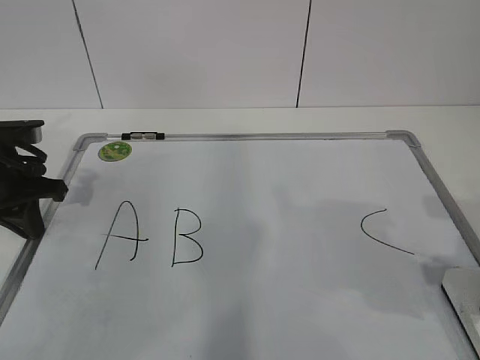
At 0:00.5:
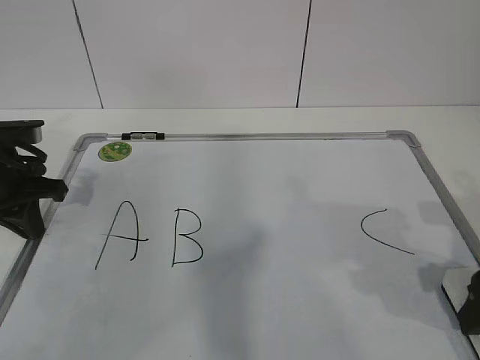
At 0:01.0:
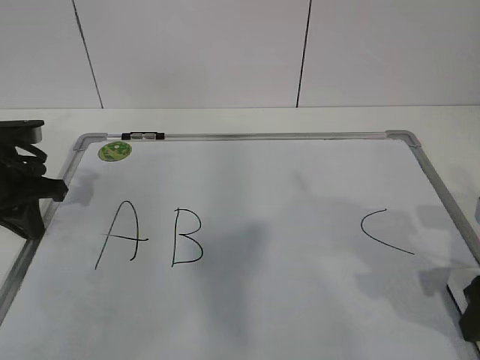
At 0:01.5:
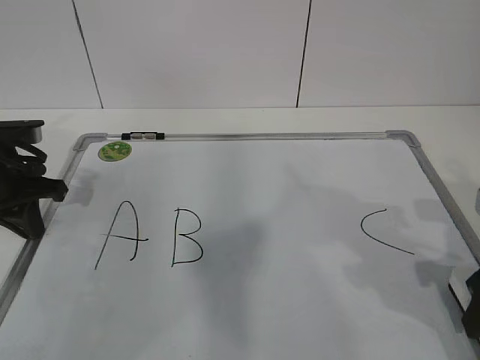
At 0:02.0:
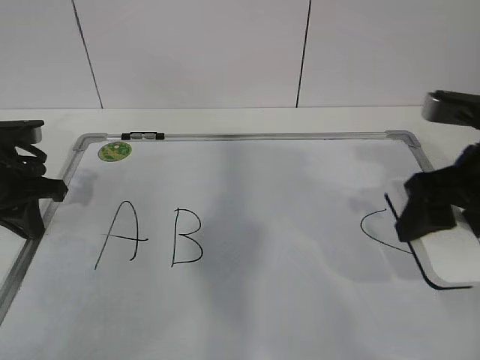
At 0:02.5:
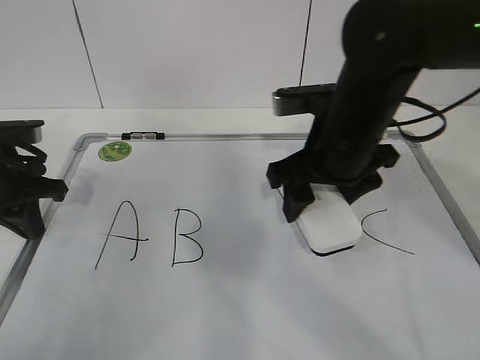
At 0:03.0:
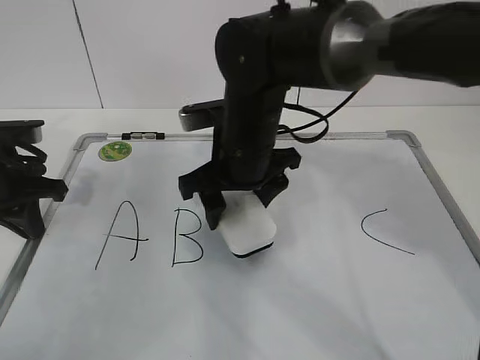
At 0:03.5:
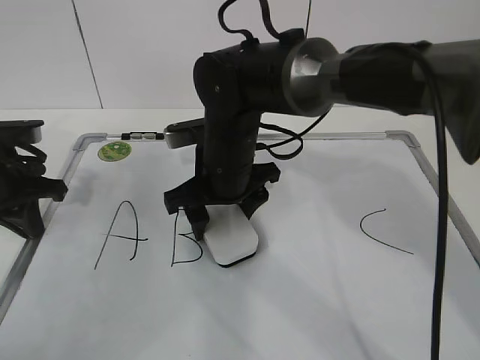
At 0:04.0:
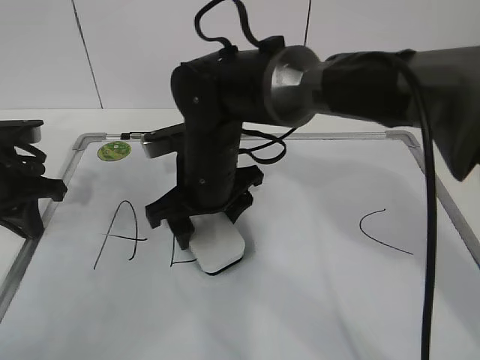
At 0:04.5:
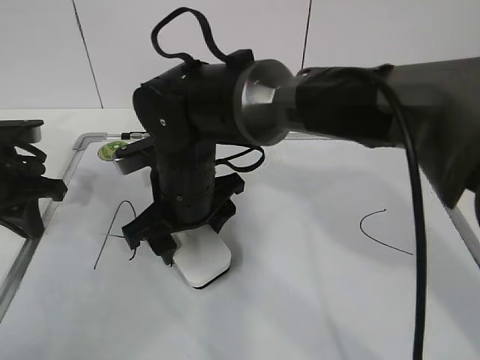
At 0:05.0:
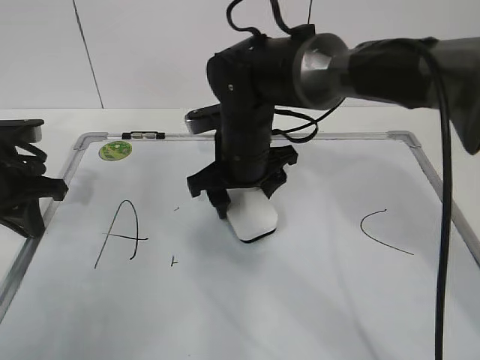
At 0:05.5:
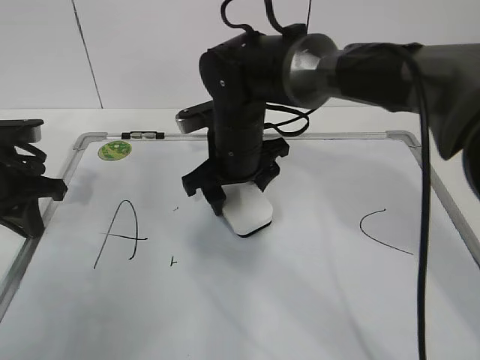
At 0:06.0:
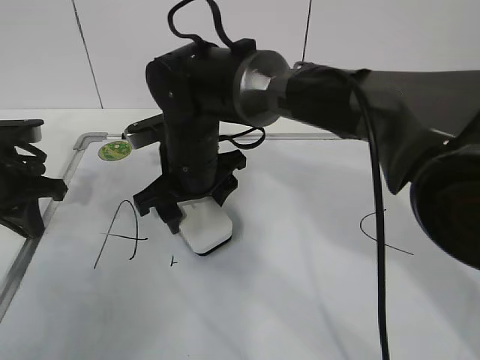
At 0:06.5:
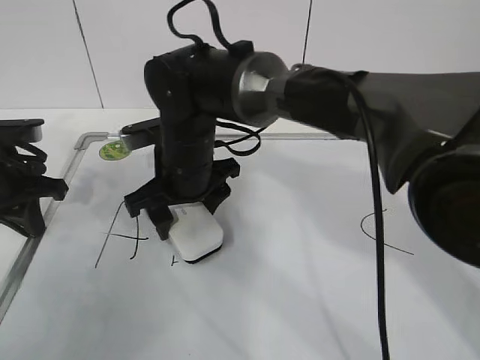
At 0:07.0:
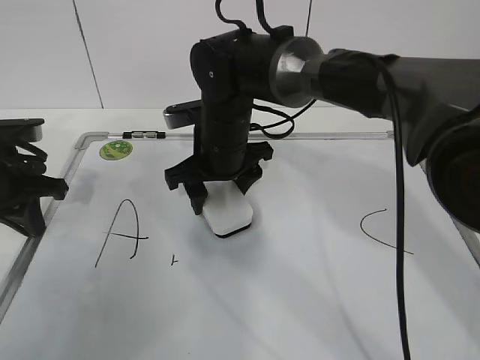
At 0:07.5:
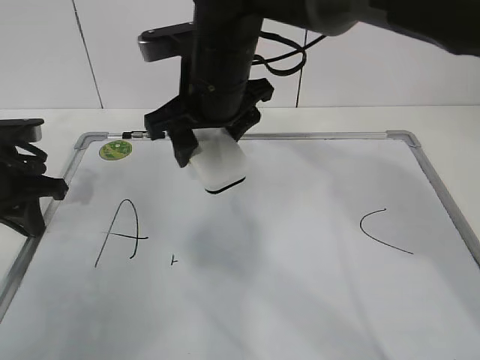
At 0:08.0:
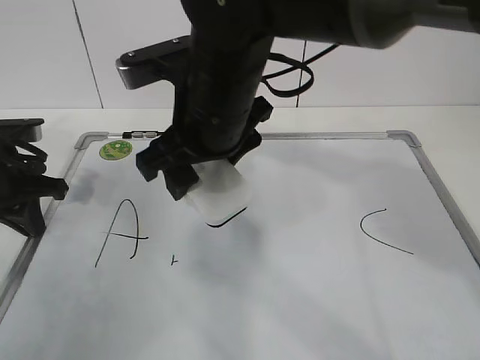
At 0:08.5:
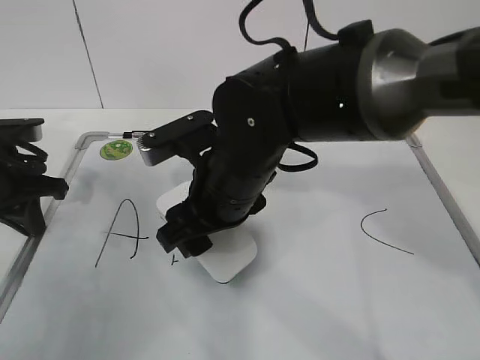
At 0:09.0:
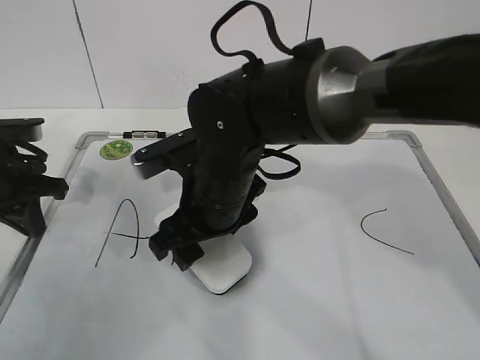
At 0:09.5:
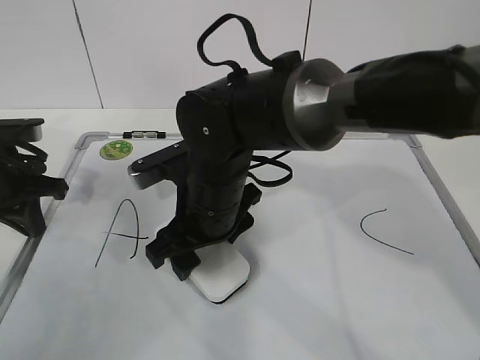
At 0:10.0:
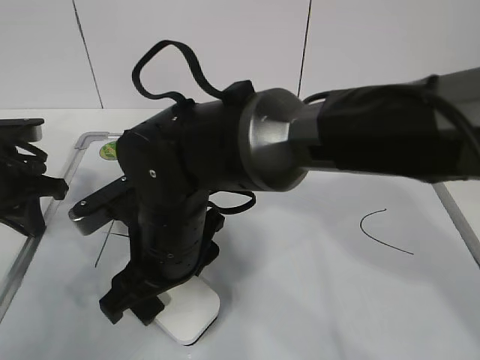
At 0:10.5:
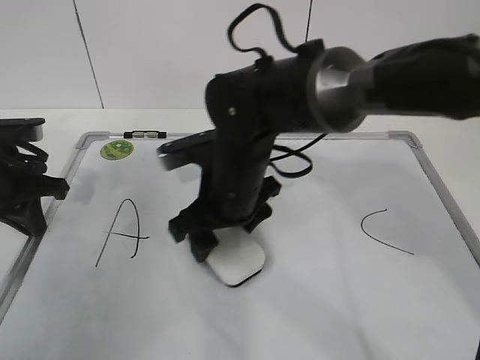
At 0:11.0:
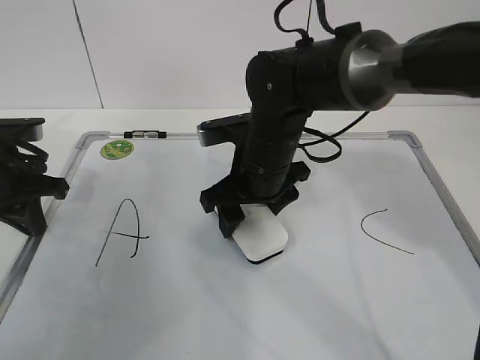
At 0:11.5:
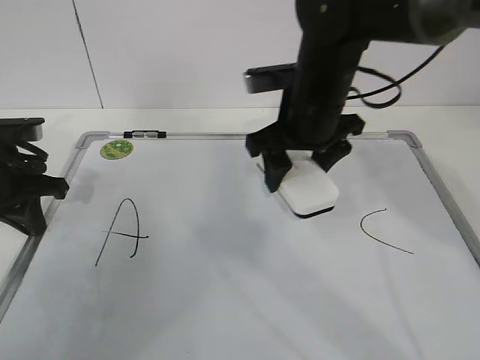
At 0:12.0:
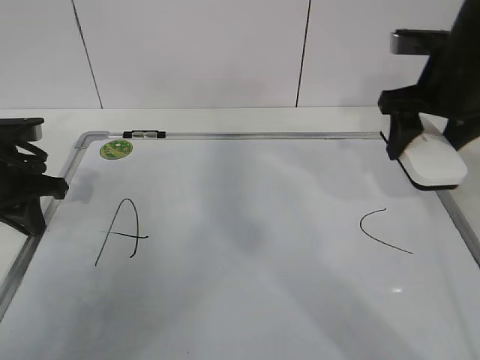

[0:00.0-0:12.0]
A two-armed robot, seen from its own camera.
Task of the whole recording: pick up the eraser on the blackboard and erase the letter "B".
Step, 0:00.0 to 0:08.0: Erase the letter B with your right hand.
Step, 0:08.5 to 0:10.5: Put down the eraser with your right hand.
0:00.0 to 0:02.0: The right gripper moves forward, some 10 cm, and closes its fingers.
0:02.0 to 0:04.0: The right gripper goes some 25 cm to the left.
0:06.0 to 0:08.0: The right gripper heads upward and backward, covering about 10 cm.
0:08.0 to 0:10.0: The right gripper travels downward and backward by approximately 10 cm.
0:10.0 to 0:12.0: The right gripper heads to the right and forward, covering roughly 30 cm.

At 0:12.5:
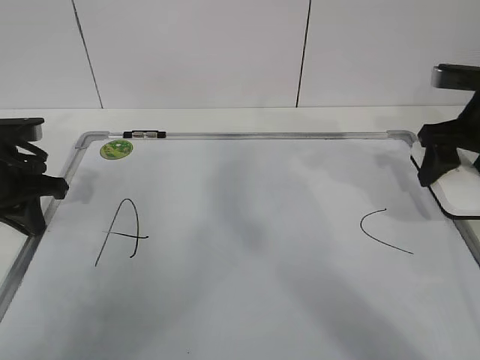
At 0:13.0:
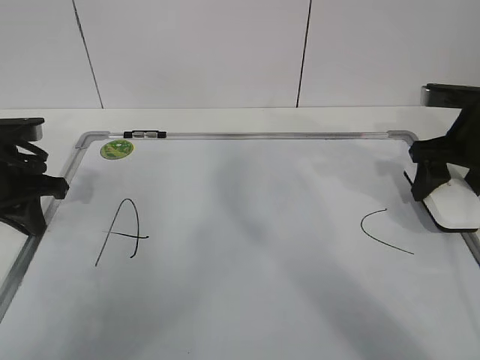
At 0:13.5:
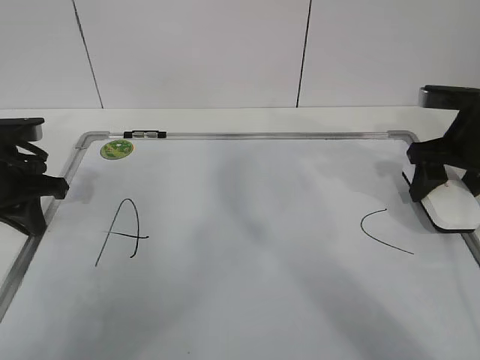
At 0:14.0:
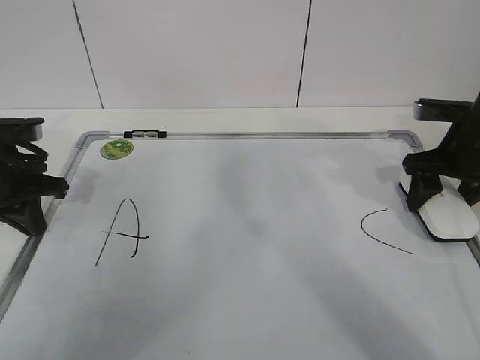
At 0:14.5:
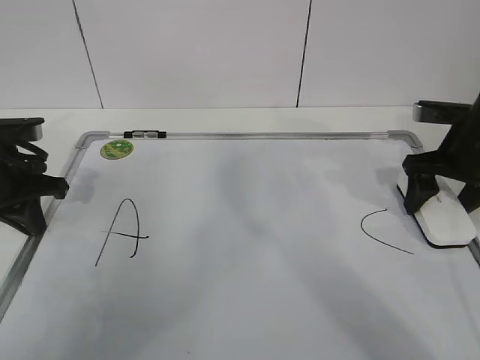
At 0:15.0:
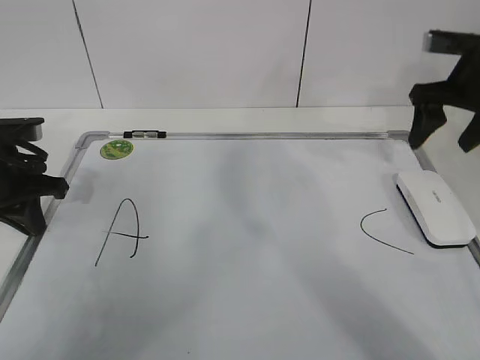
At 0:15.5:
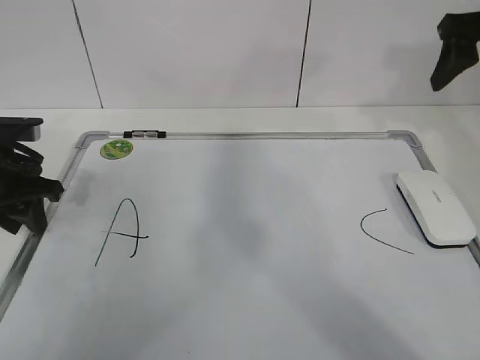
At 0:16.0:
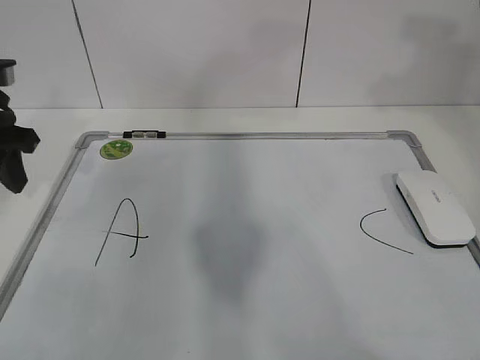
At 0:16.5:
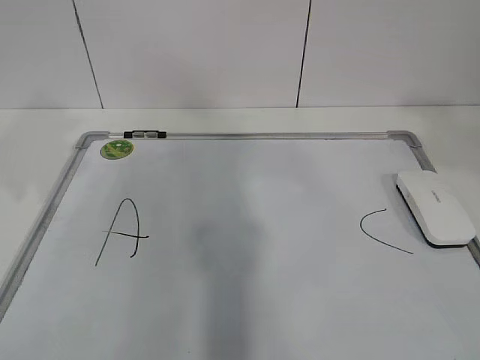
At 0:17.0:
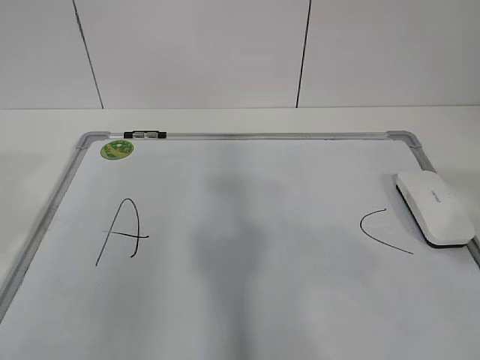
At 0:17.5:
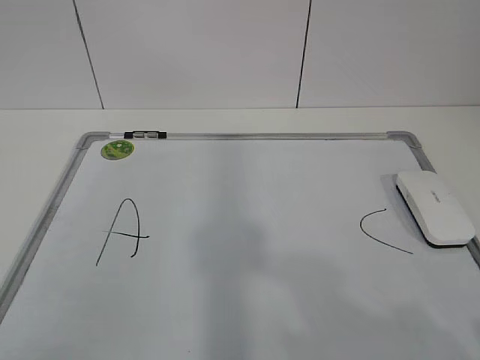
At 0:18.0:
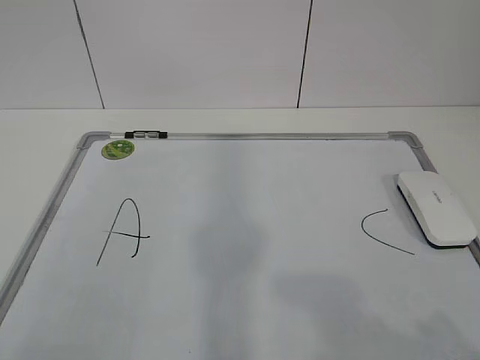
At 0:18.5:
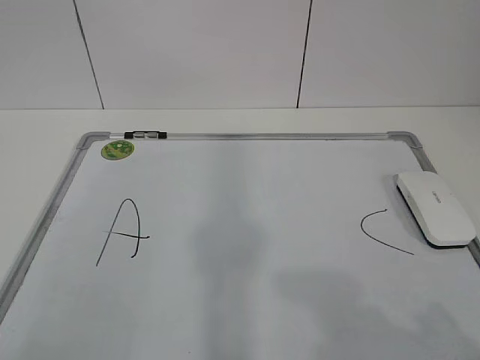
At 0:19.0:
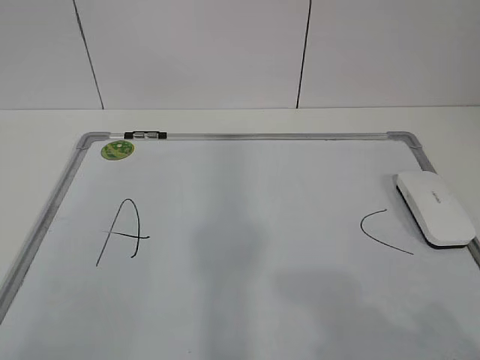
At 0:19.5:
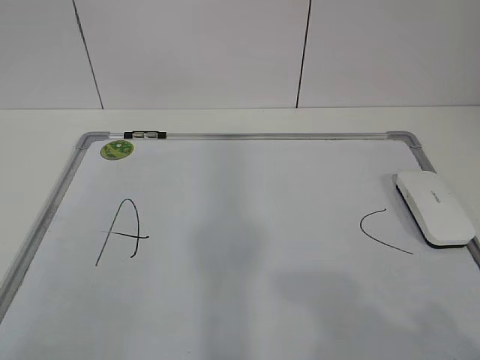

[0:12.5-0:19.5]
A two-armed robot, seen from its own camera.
Task of the whole recording: pick up the eraser on the blackboard and erase the letter "B".
0:12.5 to 0:14.5: The right gripper opens up.
0:14.5 to 0:16.0: The right gripper shifts about 25 cm upward, and closes. Meanwhile the left gripper goes about 10 cm upward, and opens.
0:16.0 to 0:17.5: Both grippers travel together backward, about 30 cm.

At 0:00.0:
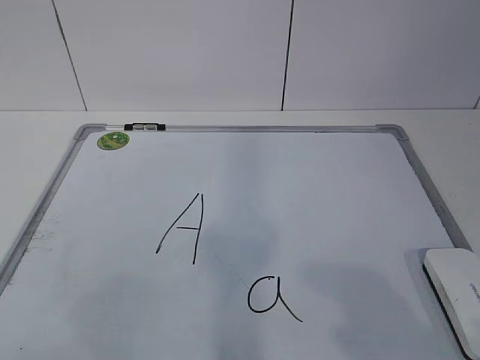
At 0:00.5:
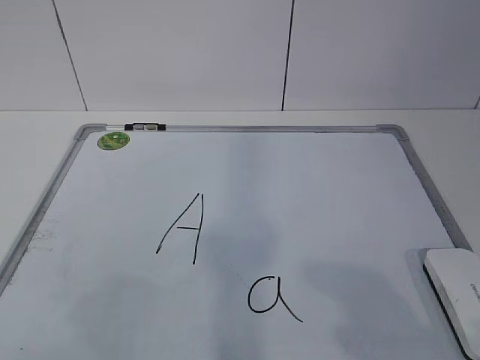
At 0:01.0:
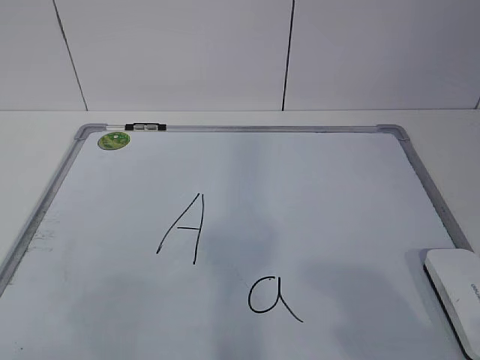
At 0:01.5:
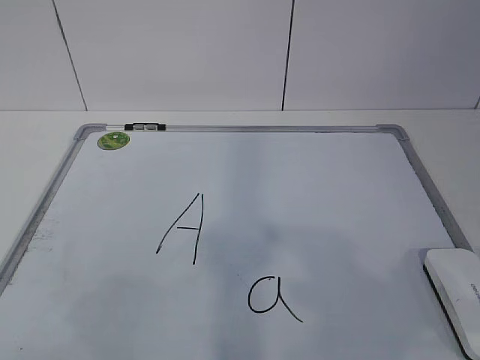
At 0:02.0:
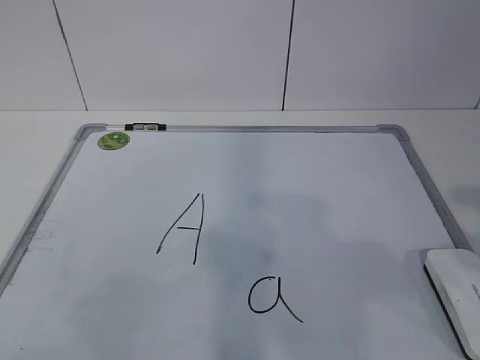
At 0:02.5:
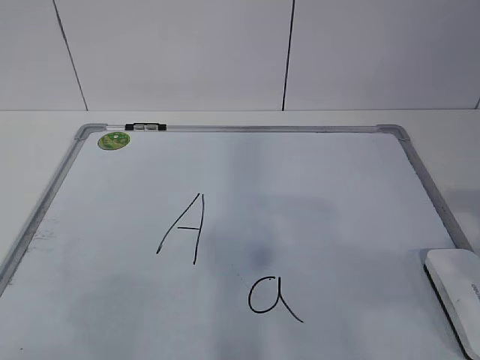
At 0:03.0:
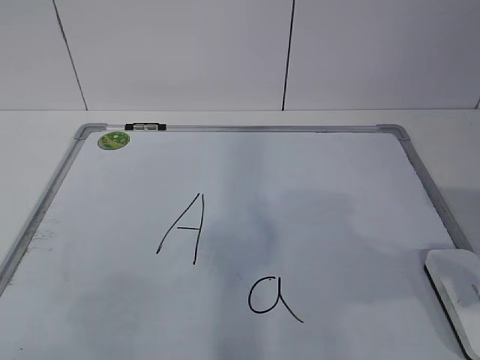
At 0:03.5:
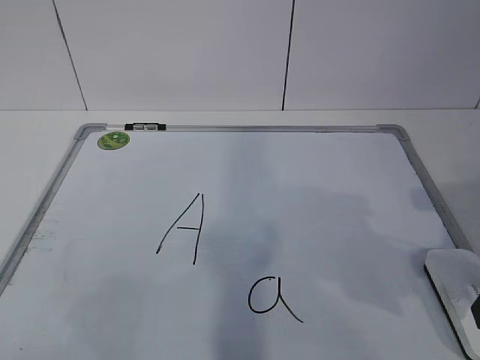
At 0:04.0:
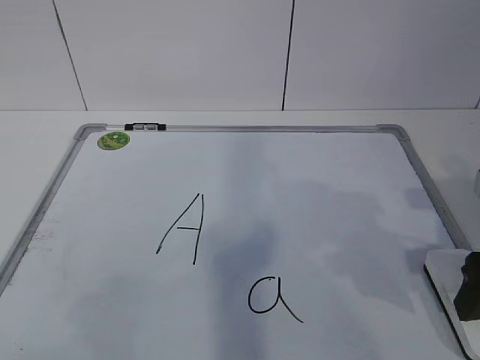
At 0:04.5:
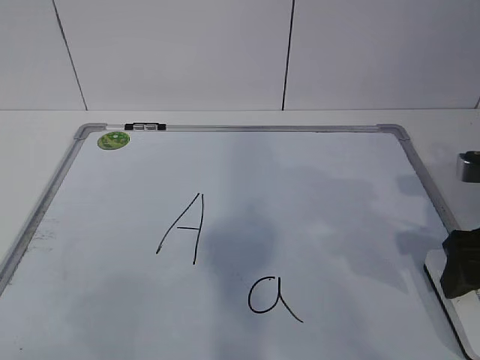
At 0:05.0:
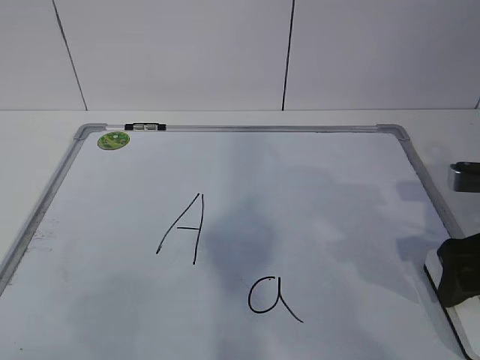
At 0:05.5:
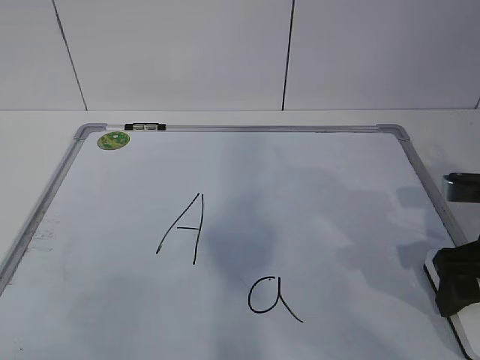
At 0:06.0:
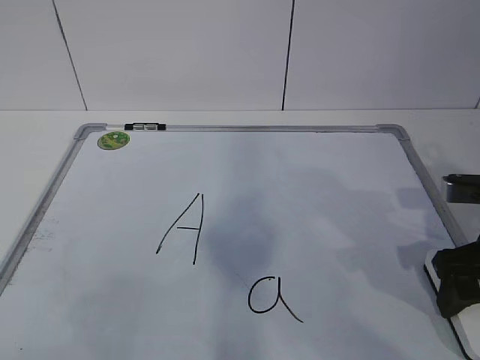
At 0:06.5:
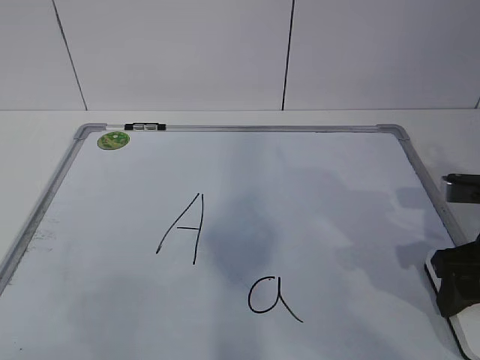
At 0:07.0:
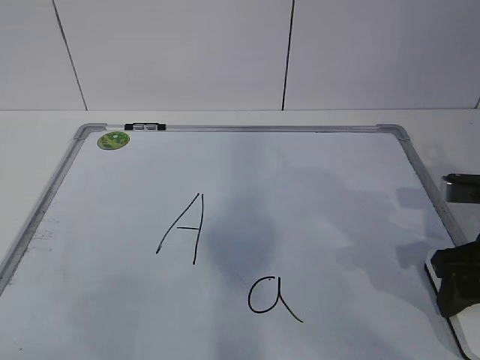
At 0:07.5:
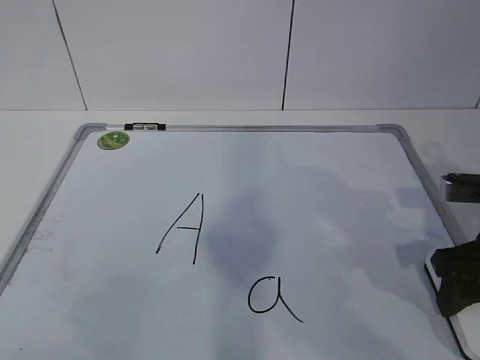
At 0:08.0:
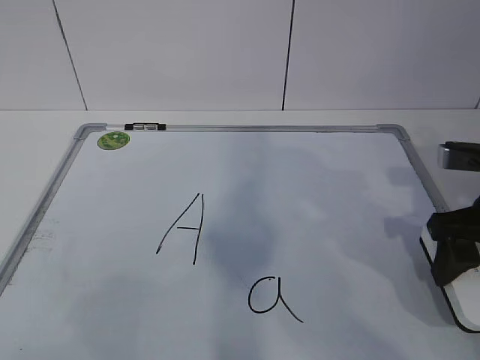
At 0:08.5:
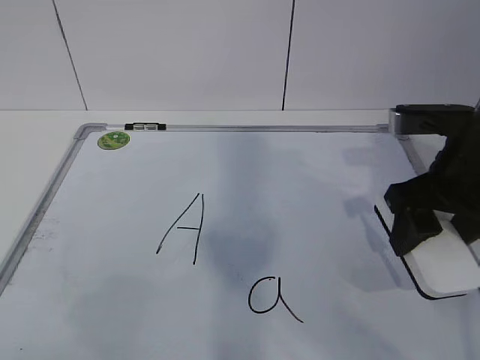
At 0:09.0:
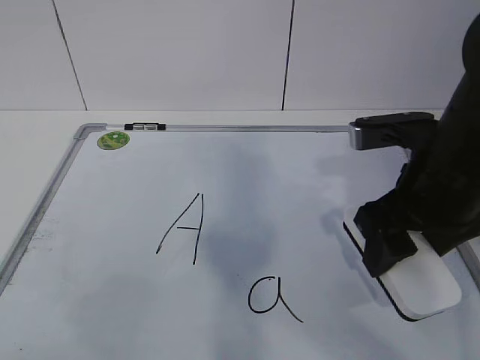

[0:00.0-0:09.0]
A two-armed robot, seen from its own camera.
Task of the whole recording: pick up the eraser on the blackboard and erase the letter "a".
Step, 0:00.0 to 0:06.0: Grab the eraser with your right hand.
0:02.0 to 0:04.5: The right gripper is displaced forward and downward by approximately 20 cm, and opens its fingers.
0:04.5 to 0:07.0: The right gripper closes its fingers.
0:07.0 to 0:09.0: The right gripper shifts roughly 10 cm to the left and upward.
